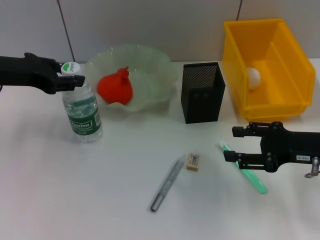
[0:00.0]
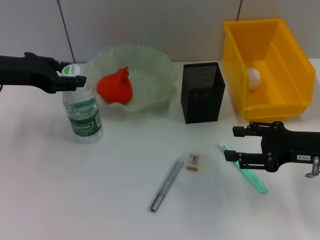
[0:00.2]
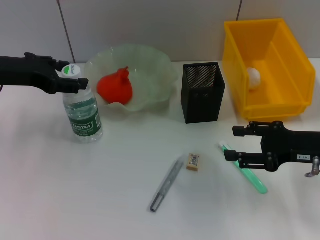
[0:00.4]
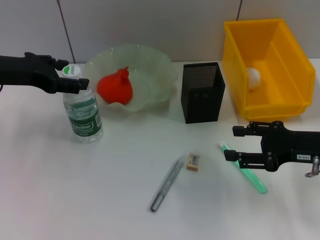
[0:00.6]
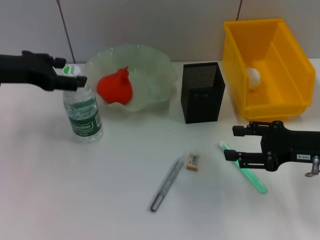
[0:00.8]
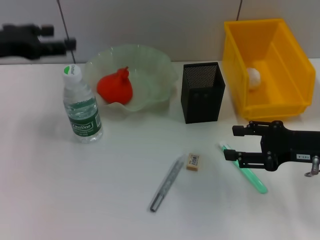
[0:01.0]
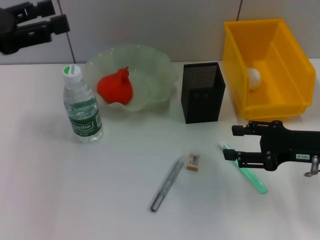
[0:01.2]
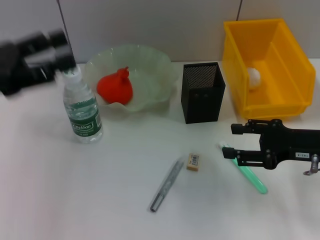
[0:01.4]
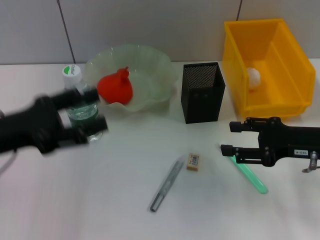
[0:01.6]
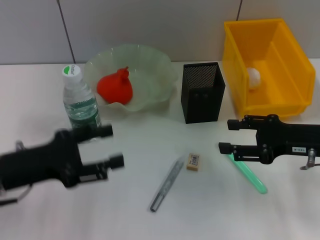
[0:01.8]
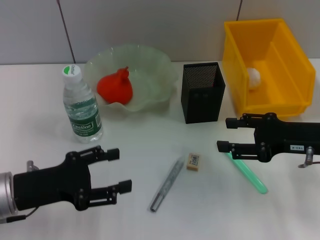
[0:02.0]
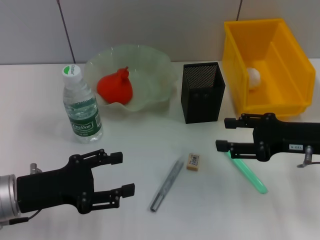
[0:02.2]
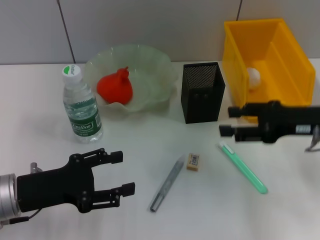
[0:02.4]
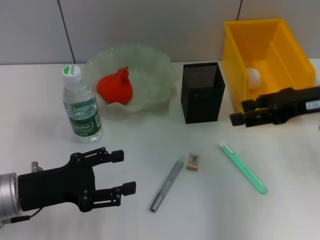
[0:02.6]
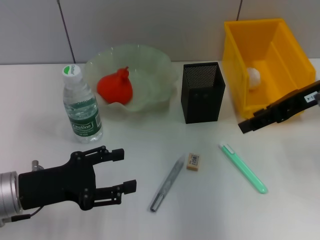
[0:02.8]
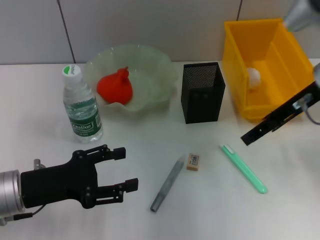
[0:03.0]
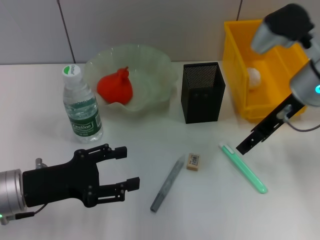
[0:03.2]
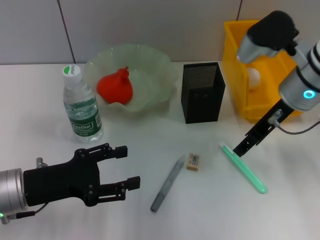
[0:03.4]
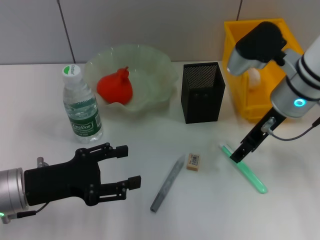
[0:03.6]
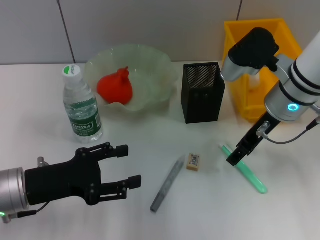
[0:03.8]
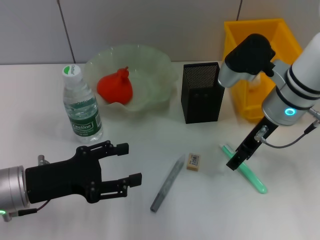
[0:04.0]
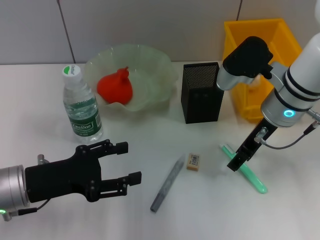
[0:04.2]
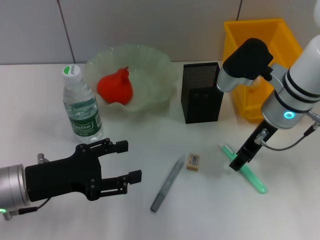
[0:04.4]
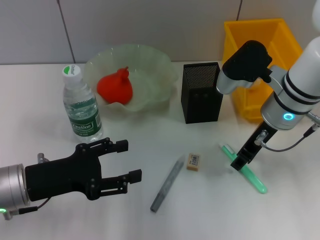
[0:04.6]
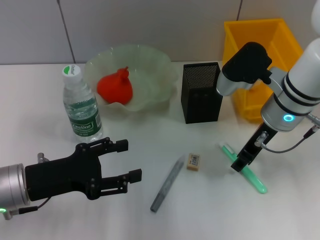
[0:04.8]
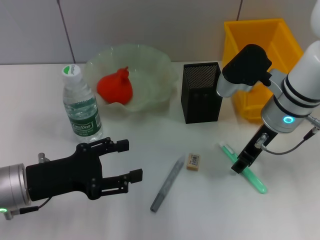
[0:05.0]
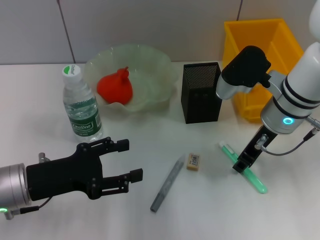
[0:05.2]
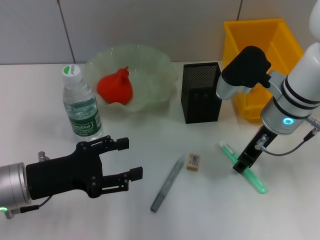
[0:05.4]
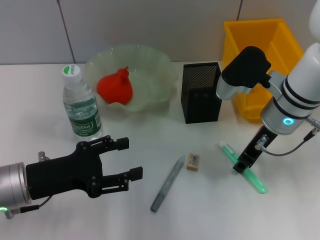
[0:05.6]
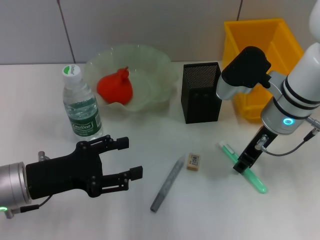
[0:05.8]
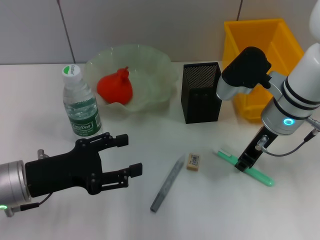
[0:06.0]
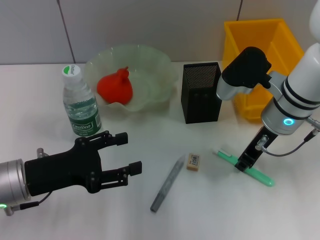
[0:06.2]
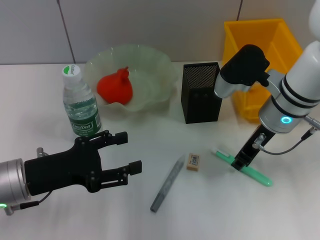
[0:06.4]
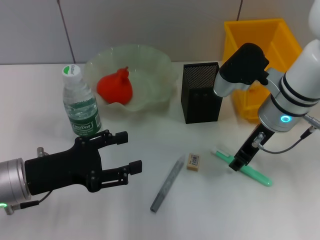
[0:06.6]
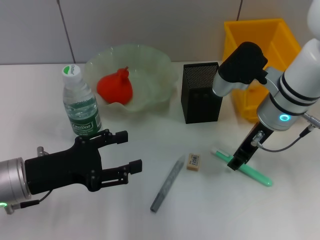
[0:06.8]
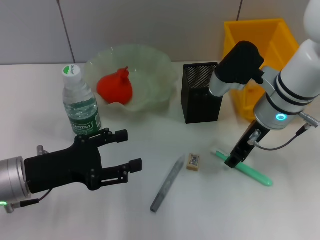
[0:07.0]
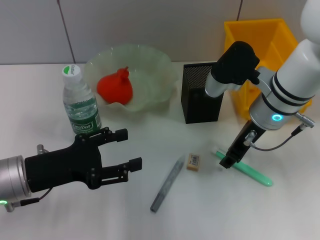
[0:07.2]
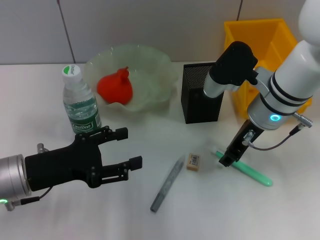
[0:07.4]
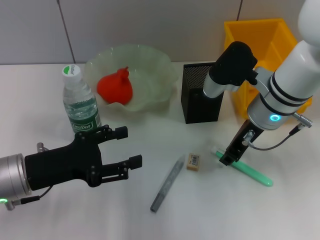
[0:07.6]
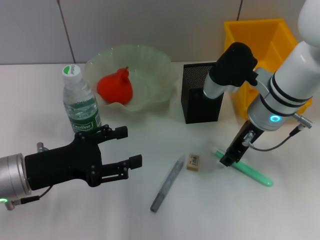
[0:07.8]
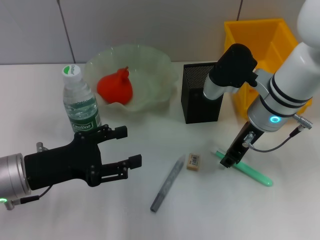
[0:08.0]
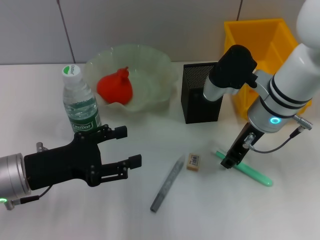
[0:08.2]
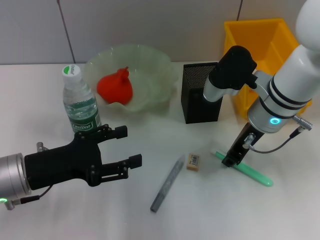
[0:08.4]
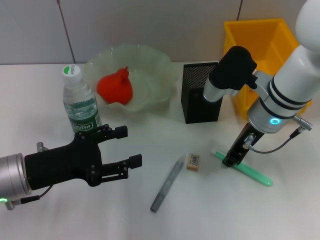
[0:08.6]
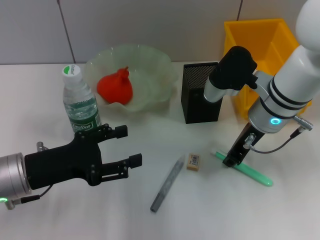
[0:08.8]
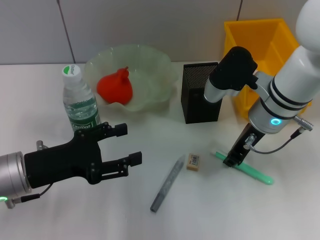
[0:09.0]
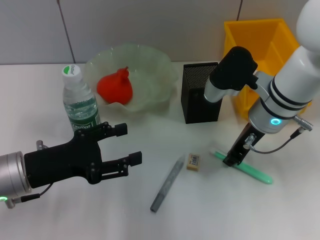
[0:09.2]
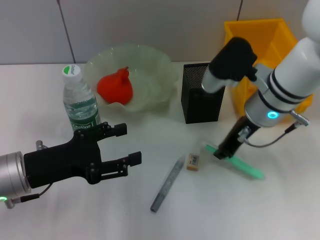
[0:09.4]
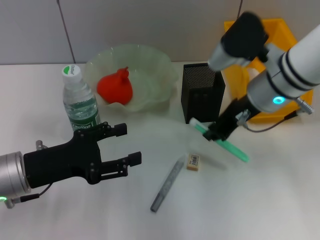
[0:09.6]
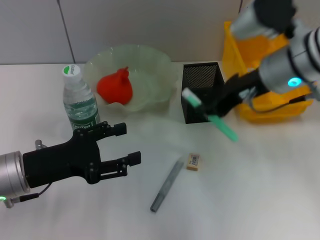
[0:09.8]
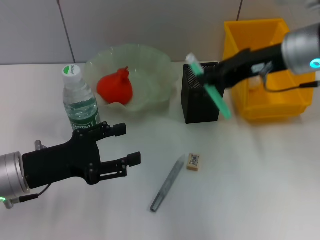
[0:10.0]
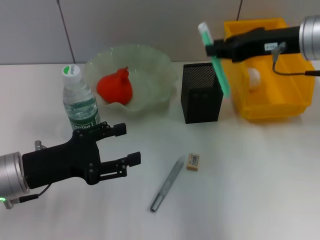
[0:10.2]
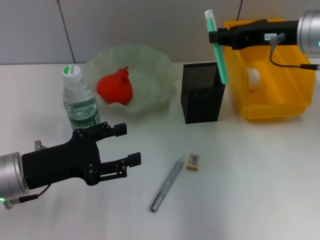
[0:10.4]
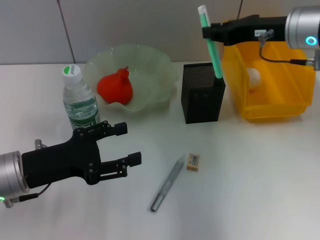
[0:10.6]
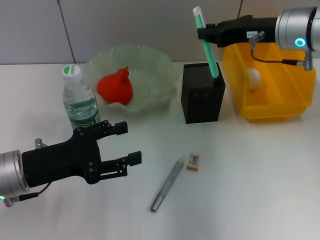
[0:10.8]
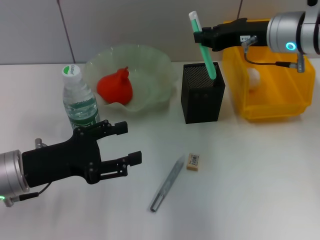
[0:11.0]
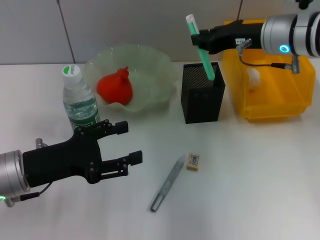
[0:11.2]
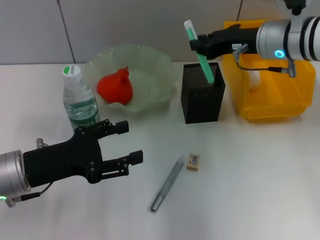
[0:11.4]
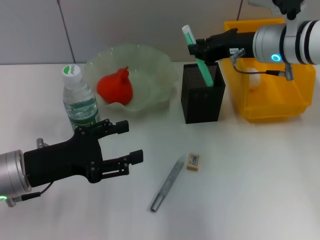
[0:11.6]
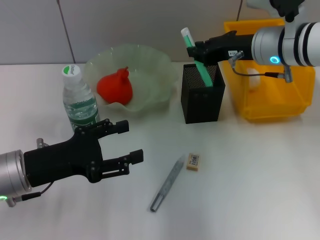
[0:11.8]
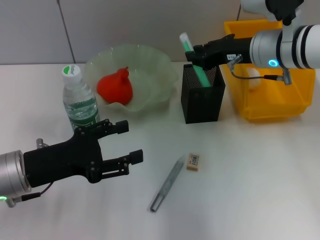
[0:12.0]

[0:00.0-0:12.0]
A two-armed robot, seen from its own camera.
Step, 0:00.6 to 0:08.8: Grab the blue utility knife with the right hand.
0:00.0 to 0:01.6: The left gripper moves backward and downward, some 10 cm, and opens.
0:01.6 to 0:03.0: The right gripper is displaced upward and forward by approximately 15 cm, while the left gripper heads downward, covering some 5 cm.
0:03.0 to 0:04.4: The right gripper heads downward and to the left, covering about 10 cm.
0:04.4 to 0:06.0: The right gripper closes its fingers.
0:06.0 to 0:07.6: The right gripper opens.
0:07.6 to 0:09.0: The two grippers keep their place.
0:09.0 to 0:10.4: The right gripper goes approximately 10 cm upward and to the right.
0:10.4 to 0:12.0: The right gripper shifts by roughly 5 cm.

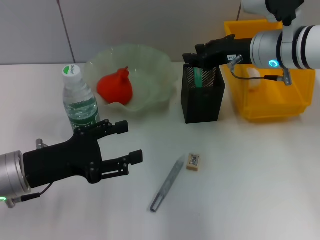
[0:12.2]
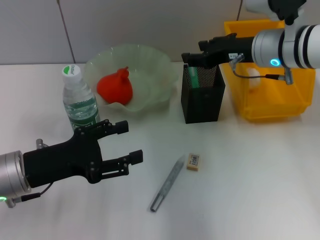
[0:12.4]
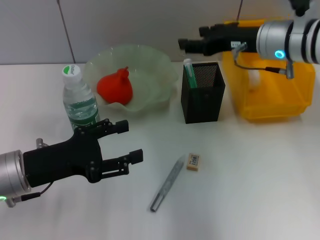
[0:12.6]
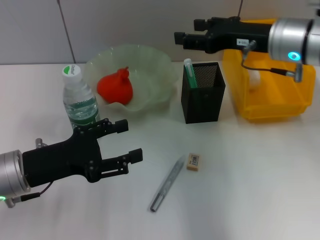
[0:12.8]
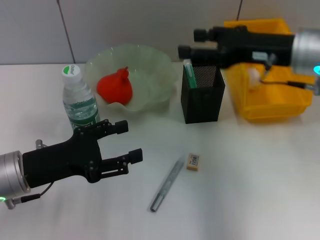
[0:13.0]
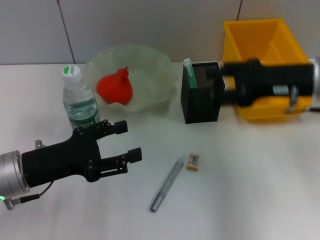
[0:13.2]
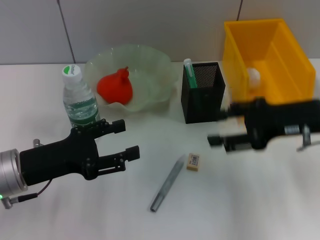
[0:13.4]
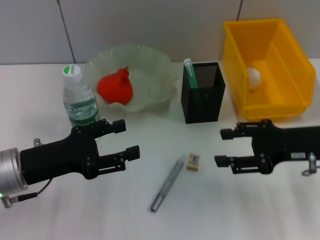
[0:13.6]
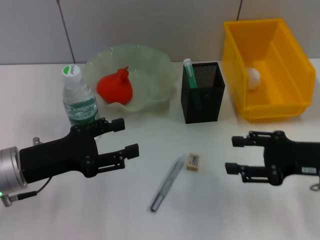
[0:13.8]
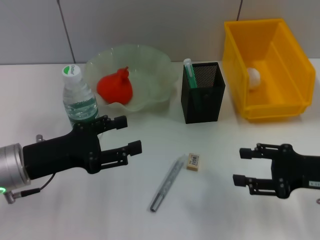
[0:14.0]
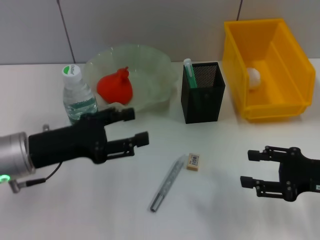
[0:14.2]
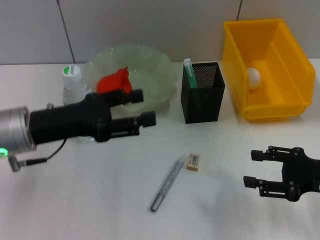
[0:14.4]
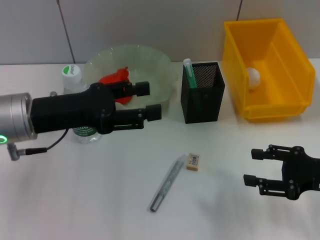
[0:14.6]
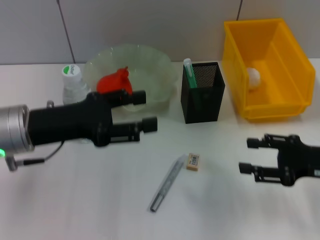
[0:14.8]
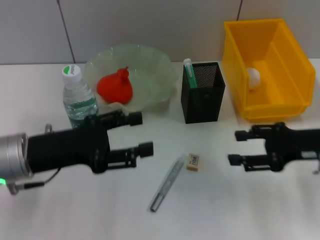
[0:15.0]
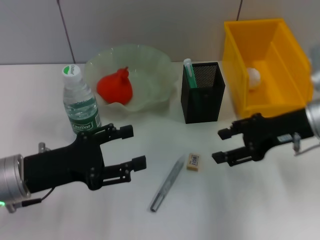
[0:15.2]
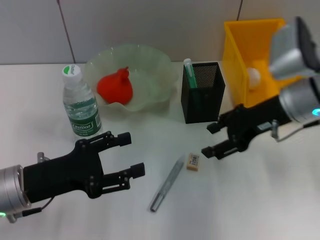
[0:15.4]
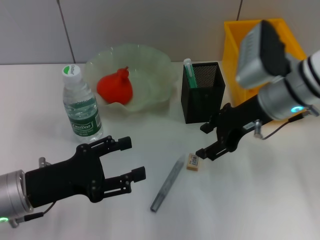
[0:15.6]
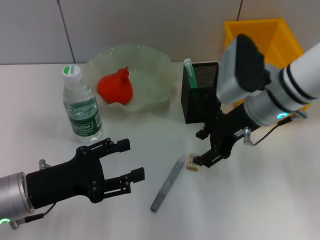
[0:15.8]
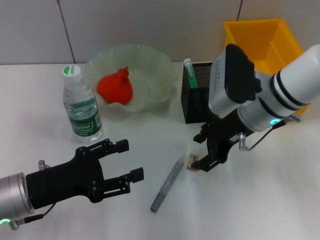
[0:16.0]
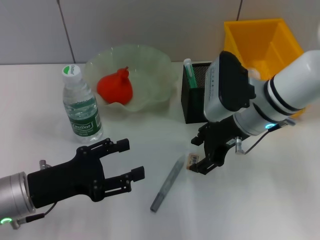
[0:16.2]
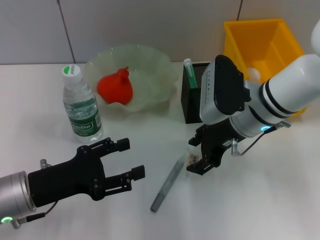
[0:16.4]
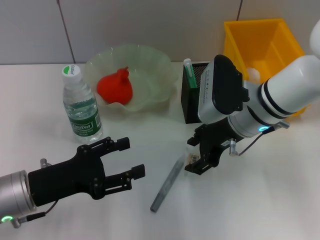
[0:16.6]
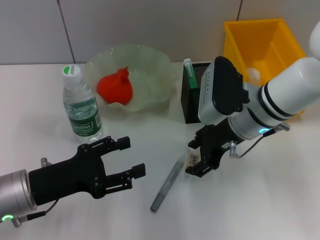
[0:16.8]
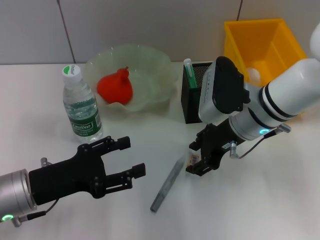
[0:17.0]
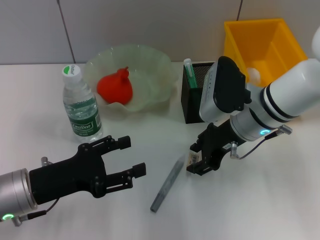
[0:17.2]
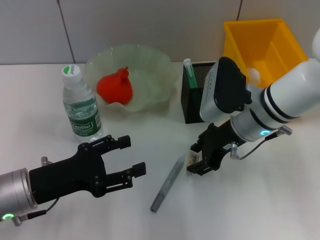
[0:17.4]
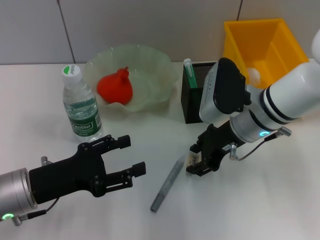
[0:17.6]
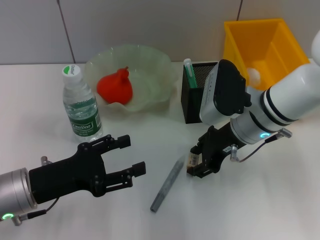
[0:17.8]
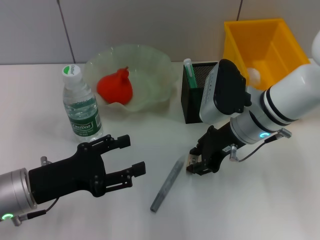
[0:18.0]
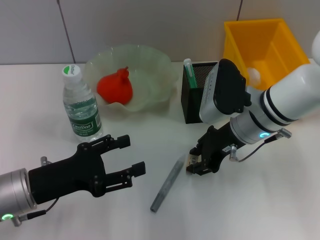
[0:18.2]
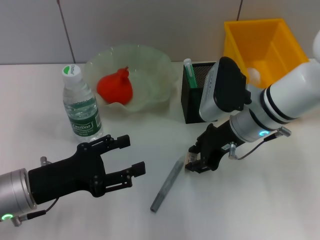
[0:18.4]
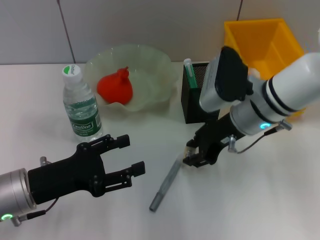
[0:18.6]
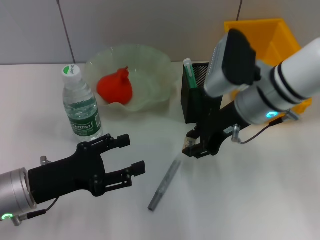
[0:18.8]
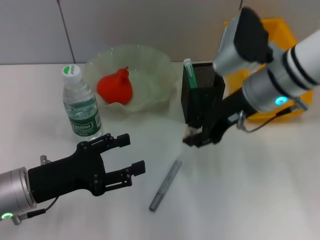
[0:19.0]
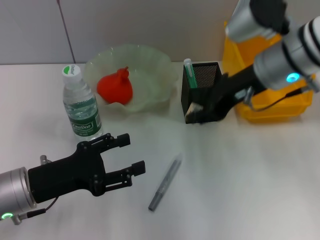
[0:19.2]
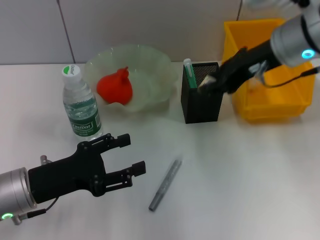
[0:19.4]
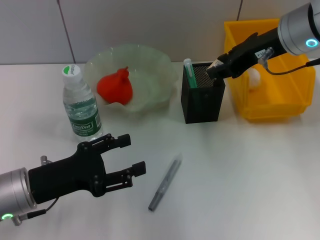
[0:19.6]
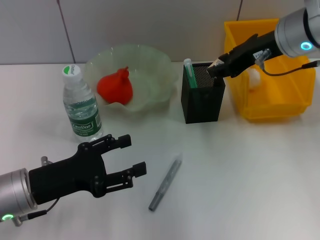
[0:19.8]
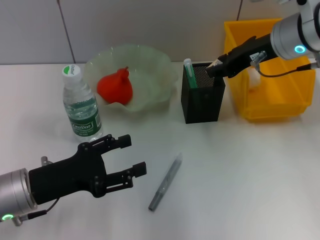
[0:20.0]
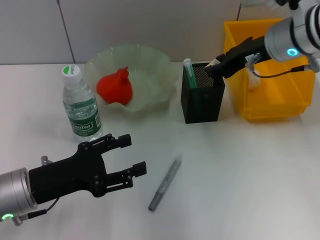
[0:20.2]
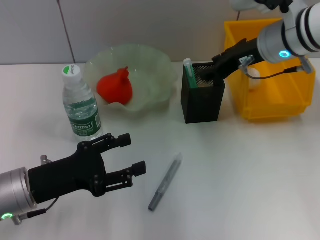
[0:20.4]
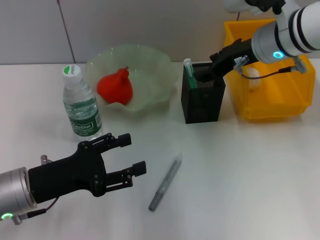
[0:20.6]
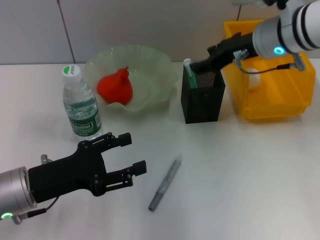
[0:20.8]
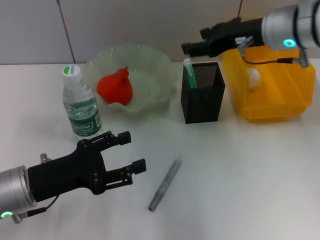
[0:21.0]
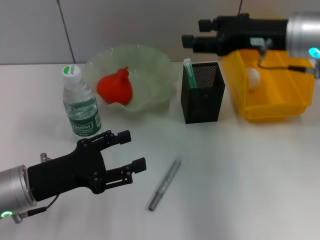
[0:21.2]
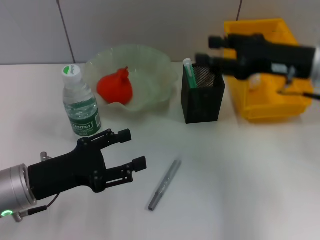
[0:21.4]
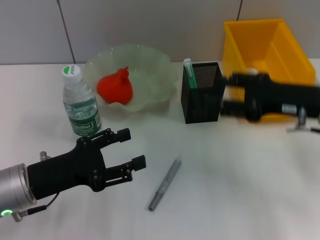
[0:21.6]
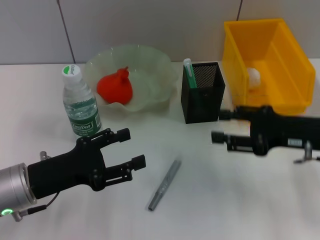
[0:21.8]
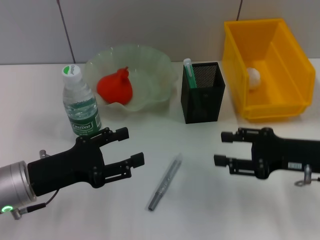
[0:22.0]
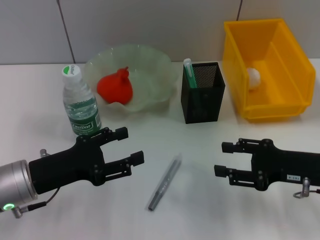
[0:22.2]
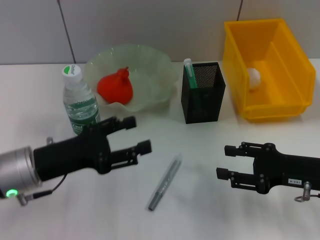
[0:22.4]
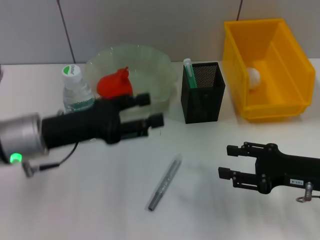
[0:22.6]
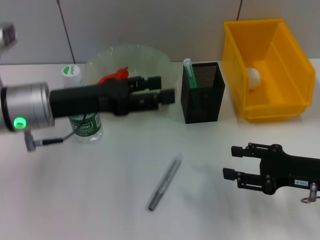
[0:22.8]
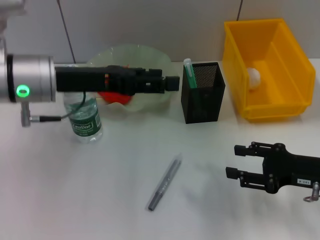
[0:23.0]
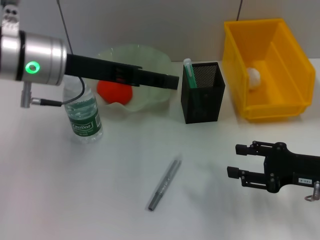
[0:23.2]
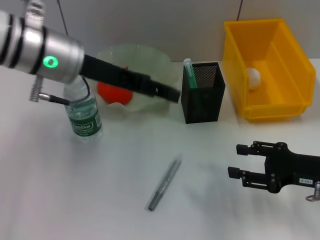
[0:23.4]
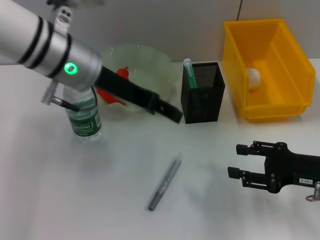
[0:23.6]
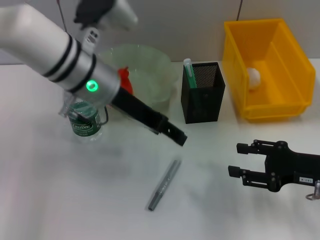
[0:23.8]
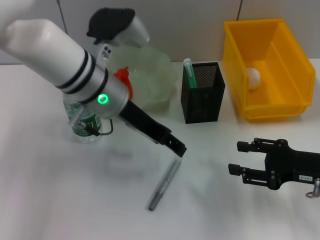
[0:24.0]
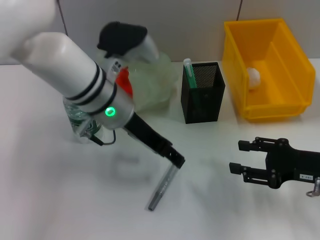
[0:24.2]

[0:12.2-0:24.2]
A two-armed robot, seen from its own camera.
Step, 0:12.6 to 0:18.2: Grab the eraser with the right hand.
Step, 0:18.4 to 0:20.6: Put the eraser into the pen holder with the right hand.
0:12.2 to 0:13.8: The right gripper heads backward, to the right and downward, covering about 20 cm, and opens its fingers.
0:13.8 to 0:15.2: The right gripper heads forward, covering some 5 cm.
0:15.2 to 0:16.6: The right gripper heads to the left, covering some 10 cm.
0:16.6 to 0:18.2: The grippers make only small movements.
0:18.2 to 0:19.8: The right gripper travels upward by roughly 10 cm.
0:21.2 to 0:22.6: The right gripper heads downward, backward and to the right, covering some 20 cm, while the left gripper moves roughly 5 cm.
0:22.6 to 0:24.2: The left gripper shifts some 15 cm to the right, forward and upward.
